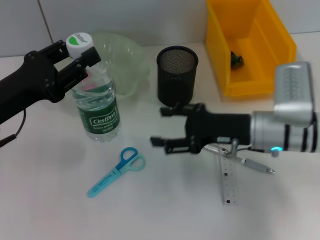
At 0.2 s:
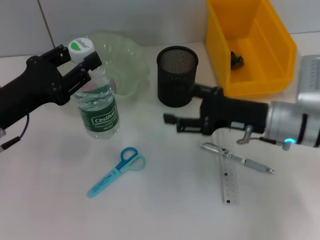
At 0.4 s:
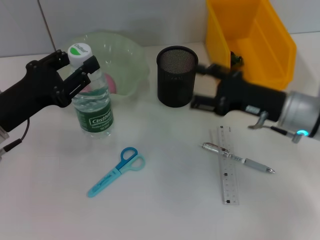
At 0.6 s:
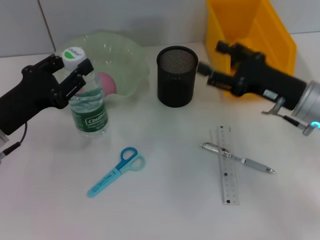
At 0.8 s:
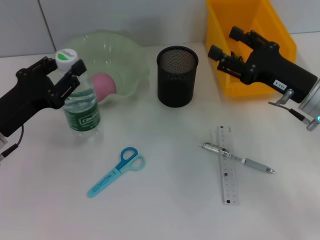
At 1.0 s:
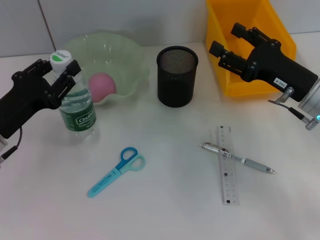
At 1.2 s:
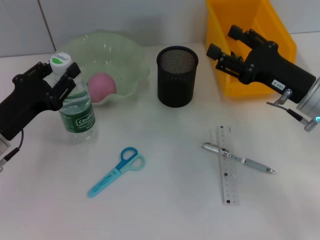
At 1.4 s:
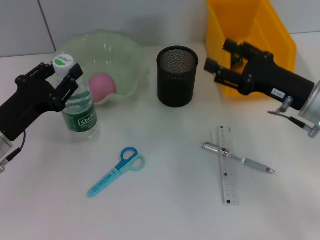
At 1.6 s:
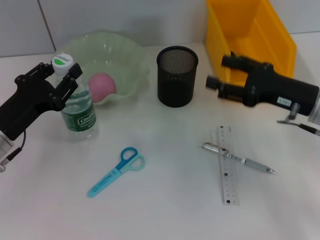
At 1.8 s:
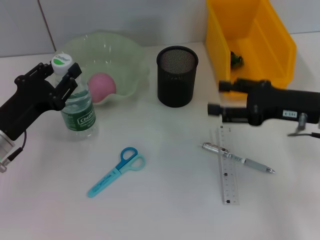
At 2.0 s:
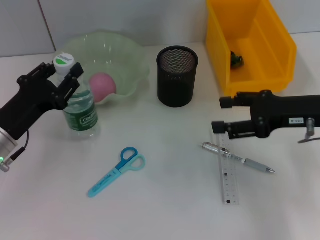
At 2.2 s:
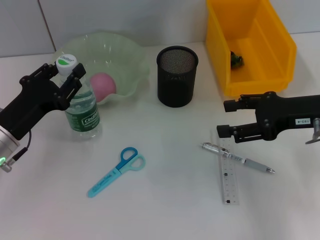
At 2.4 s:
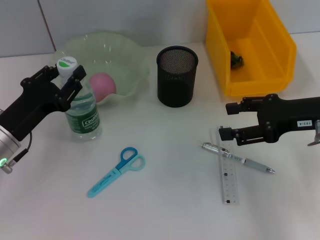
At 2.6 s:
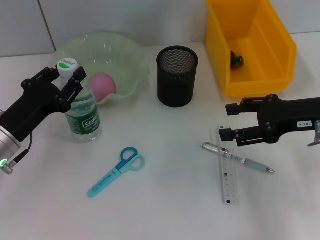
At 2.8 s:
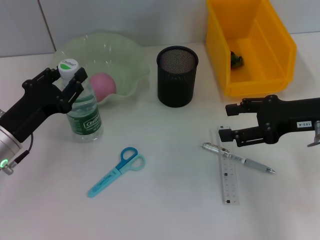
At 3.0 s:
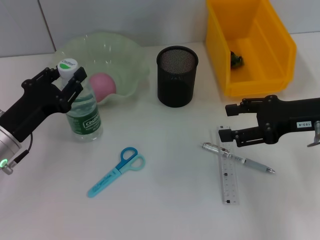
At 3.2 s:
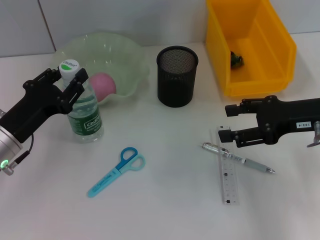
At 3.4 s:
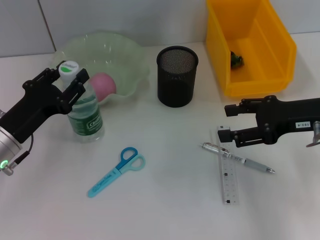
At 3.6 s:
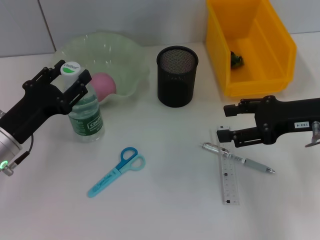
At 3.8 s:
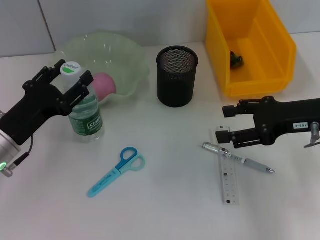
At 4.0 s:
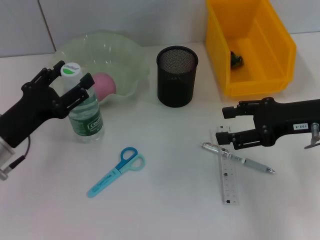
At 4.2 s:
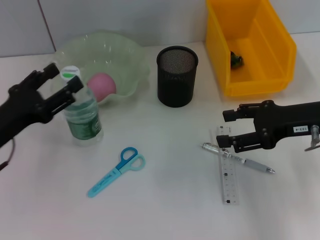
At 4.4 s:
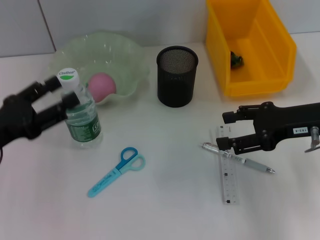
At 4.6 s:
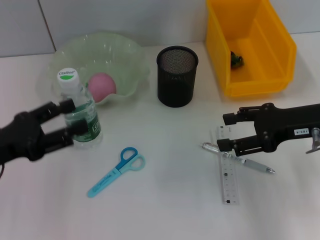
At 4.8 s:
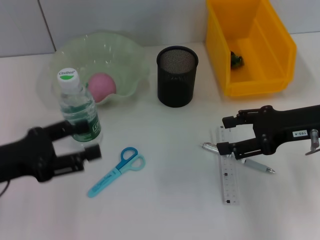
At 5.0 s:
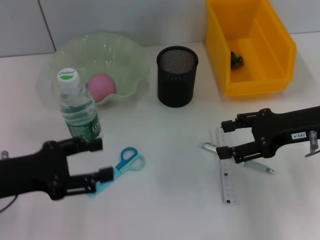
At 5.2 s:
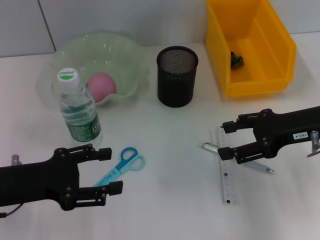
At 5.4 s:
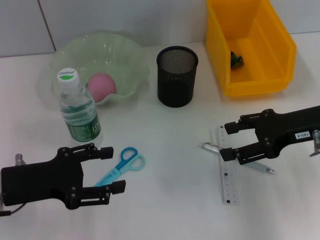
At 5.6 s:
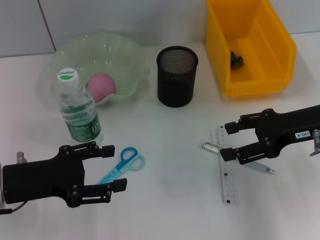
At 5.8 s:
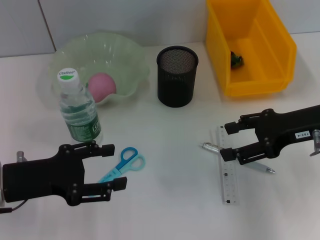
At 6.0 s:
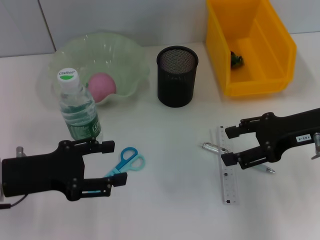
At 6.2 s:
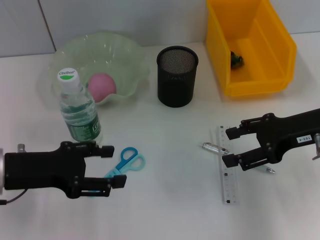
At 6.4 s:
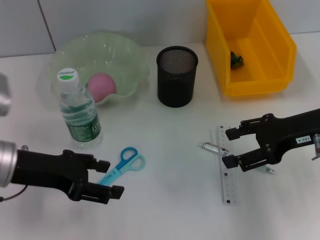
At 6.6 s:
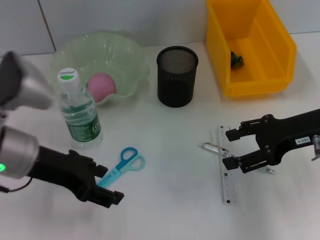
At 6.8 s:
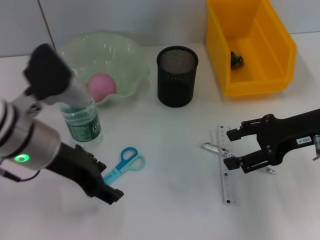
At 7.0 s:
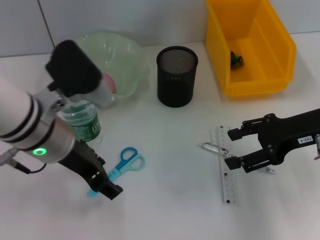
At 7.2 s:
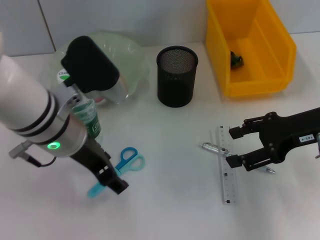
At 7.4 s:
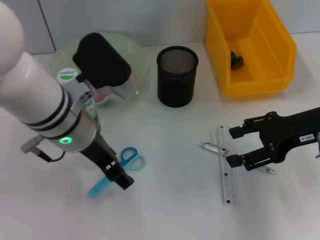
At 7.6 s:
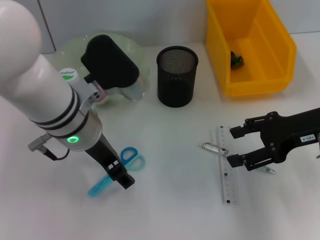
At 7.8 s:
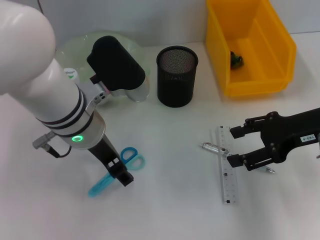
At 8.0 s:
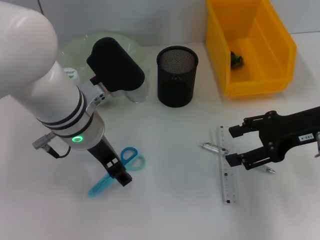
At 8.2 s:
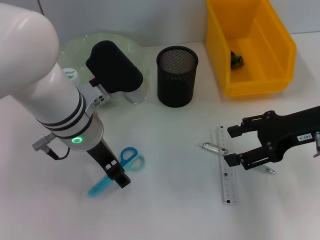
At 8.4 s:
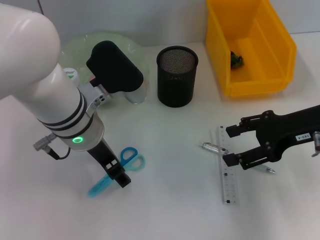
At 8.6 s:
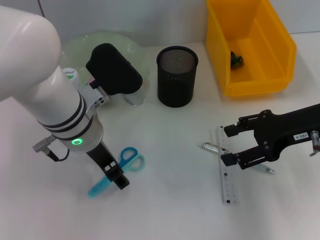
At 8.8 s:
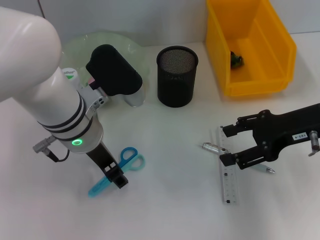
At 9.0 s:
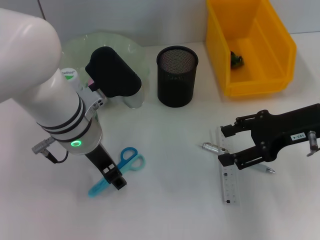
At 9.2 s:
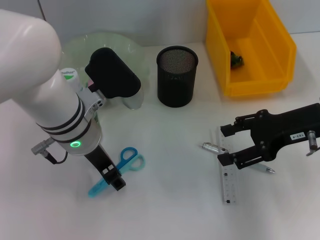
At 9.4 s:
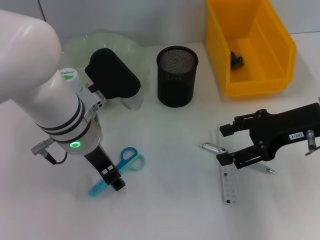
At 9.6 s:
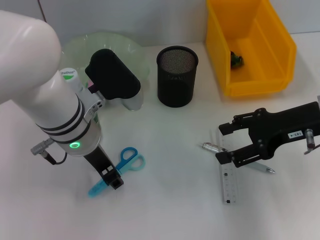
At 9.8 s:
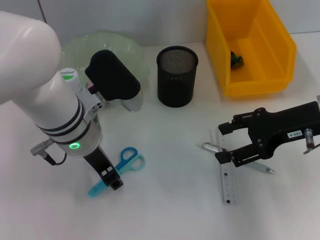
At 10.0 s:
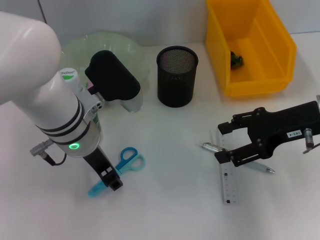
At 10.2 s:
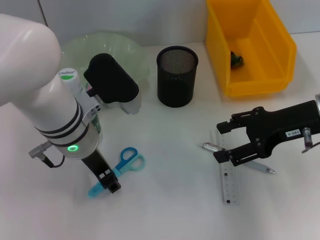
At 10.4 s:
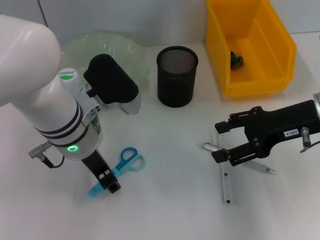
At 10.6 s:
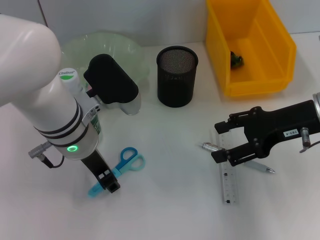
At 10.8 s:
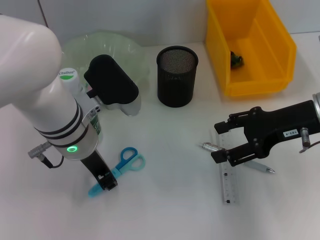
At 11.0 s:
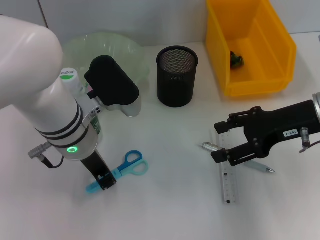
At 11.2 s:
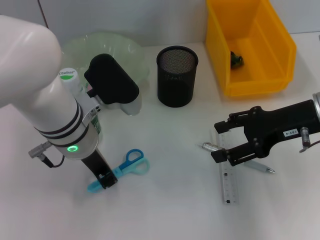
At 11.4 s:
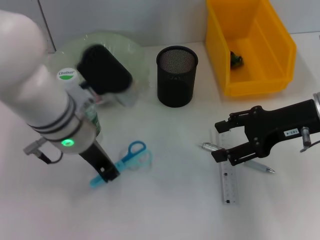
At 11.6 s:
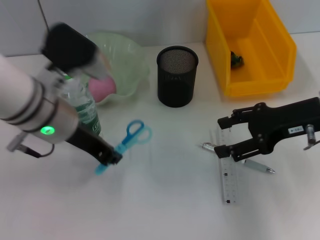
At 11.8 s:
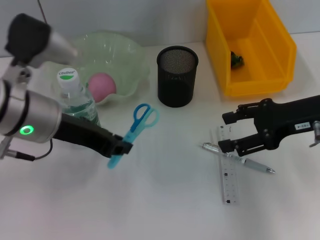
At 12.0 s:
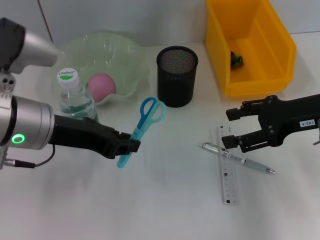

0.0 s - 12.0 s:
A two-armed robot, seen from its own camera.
Step, 0.0 s - 3.6 s: Place the water bottle on the table with the left hand.
Step, 4.0 s - 11.0 s: Grab the blue scissors with the left hand.
0.0 s - 1.6 s: The right gripper is displaced to the right by roughly 5 cm, while the left gripper moves downward, approximately 5 cm.
3.0 s - 4.4 s: The left gripper moves roughly 5 cm, and opens its fingers.
6.0 s - 7.6 s: The left gripper moves to the right and forward, some 15 cm.
7.6 s - 9.0 s: The grippers make only small movements.
9.0 s - 10.4 s: Neither gripper changes place.
10.4 s - 12.0 s: The left gripper is displaced to the left by about 5 cm, and closes its fingers.

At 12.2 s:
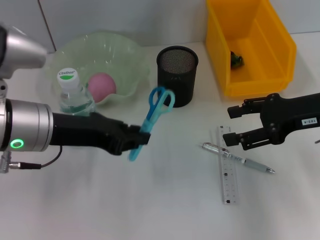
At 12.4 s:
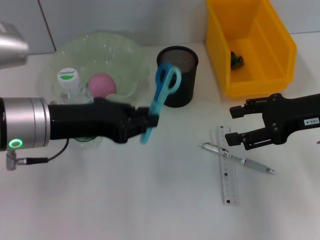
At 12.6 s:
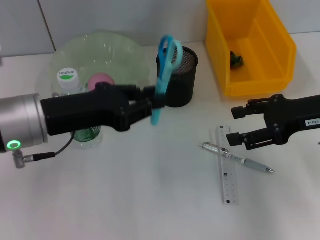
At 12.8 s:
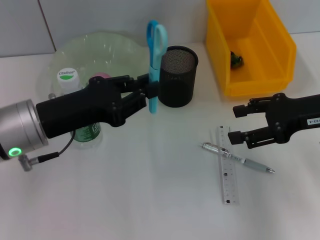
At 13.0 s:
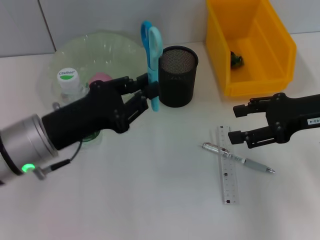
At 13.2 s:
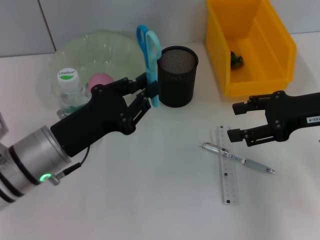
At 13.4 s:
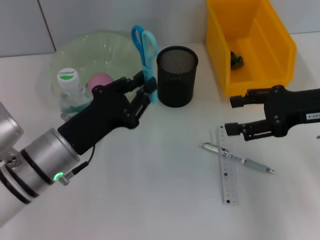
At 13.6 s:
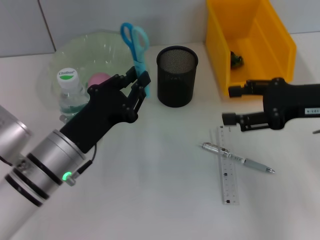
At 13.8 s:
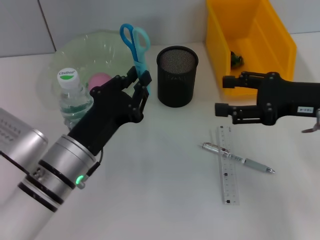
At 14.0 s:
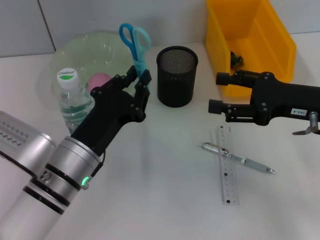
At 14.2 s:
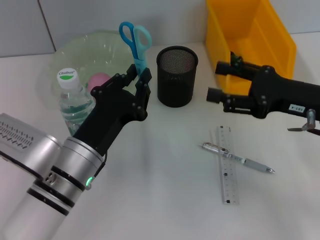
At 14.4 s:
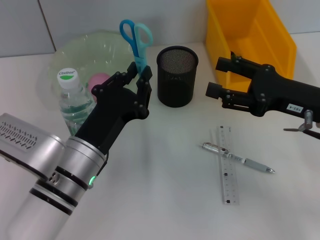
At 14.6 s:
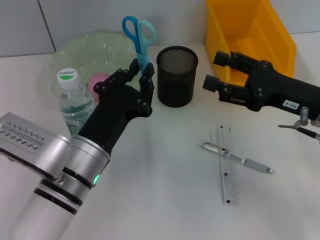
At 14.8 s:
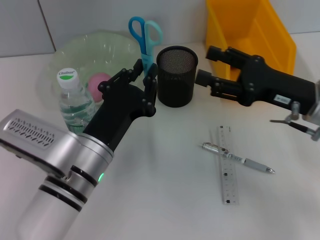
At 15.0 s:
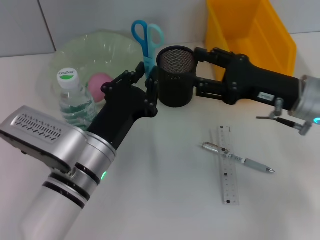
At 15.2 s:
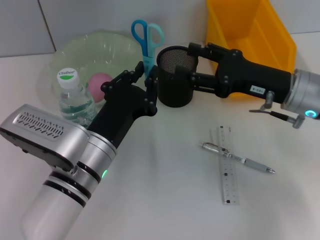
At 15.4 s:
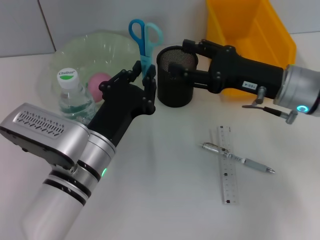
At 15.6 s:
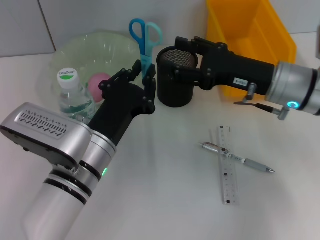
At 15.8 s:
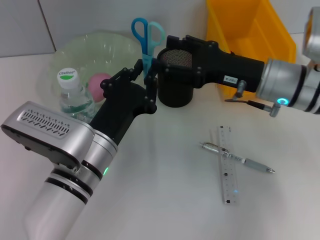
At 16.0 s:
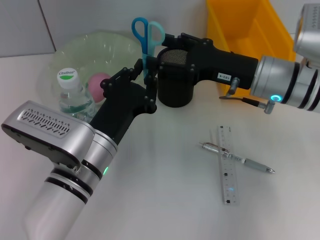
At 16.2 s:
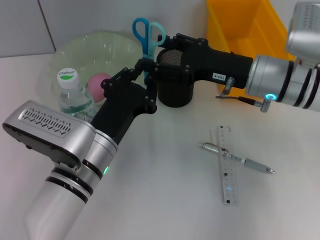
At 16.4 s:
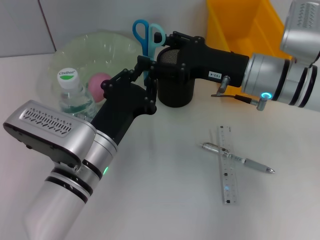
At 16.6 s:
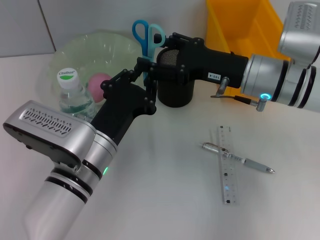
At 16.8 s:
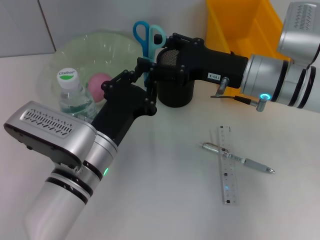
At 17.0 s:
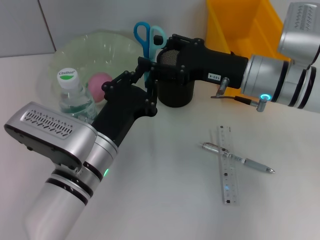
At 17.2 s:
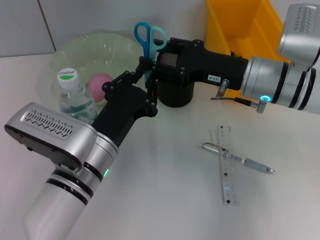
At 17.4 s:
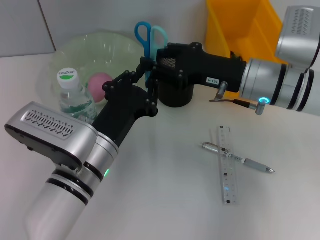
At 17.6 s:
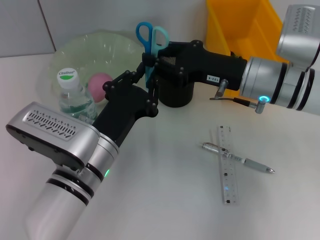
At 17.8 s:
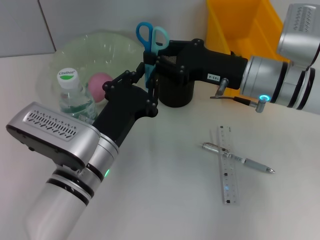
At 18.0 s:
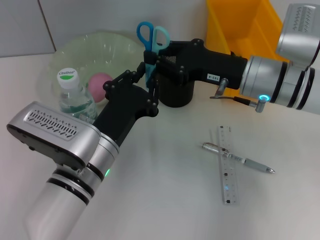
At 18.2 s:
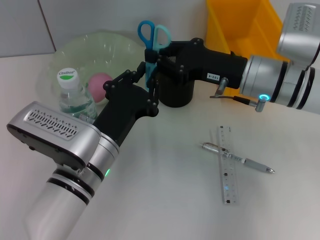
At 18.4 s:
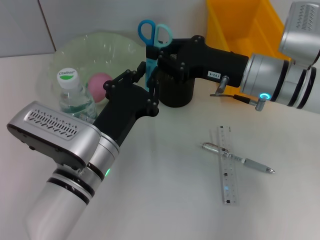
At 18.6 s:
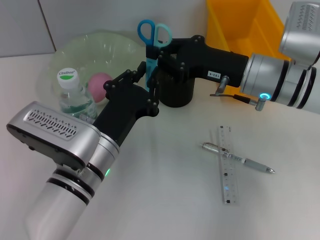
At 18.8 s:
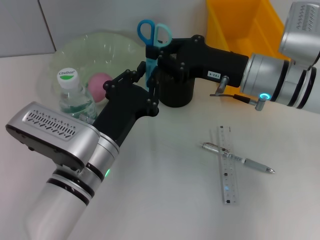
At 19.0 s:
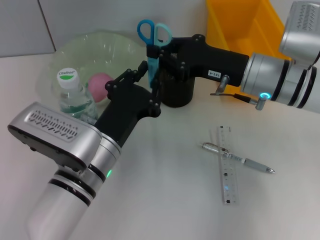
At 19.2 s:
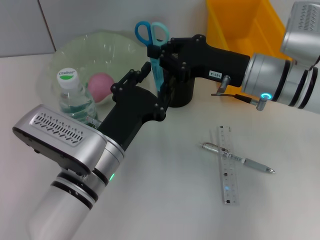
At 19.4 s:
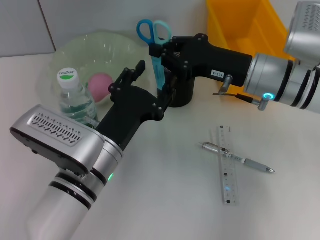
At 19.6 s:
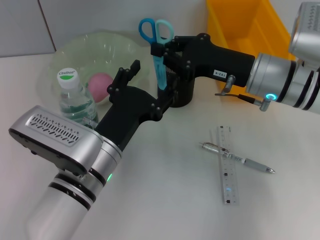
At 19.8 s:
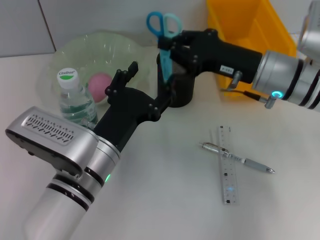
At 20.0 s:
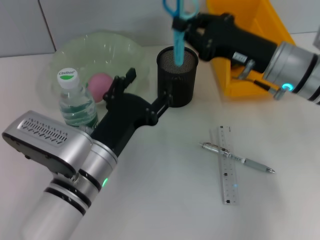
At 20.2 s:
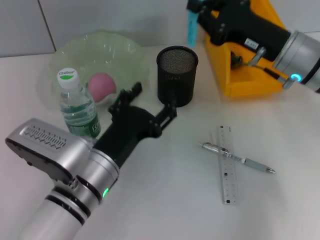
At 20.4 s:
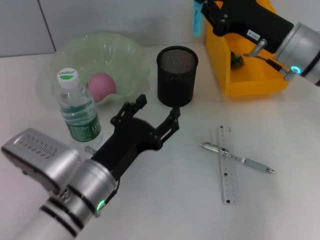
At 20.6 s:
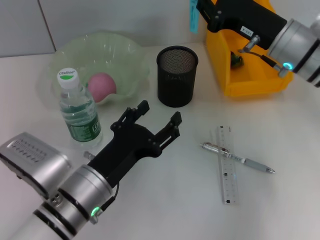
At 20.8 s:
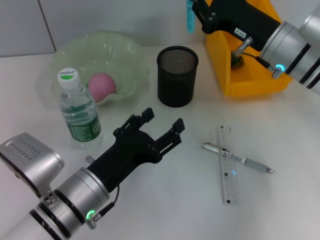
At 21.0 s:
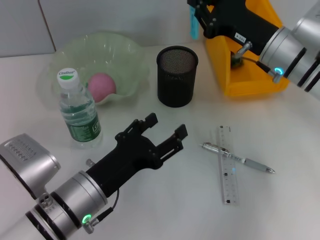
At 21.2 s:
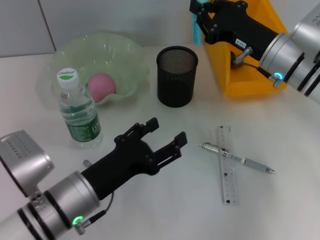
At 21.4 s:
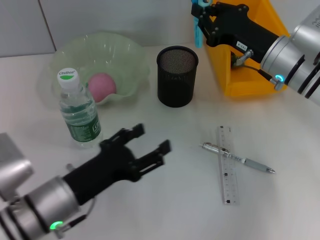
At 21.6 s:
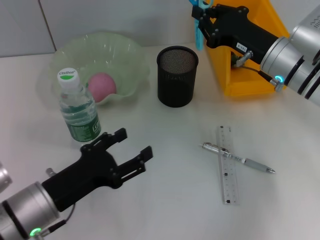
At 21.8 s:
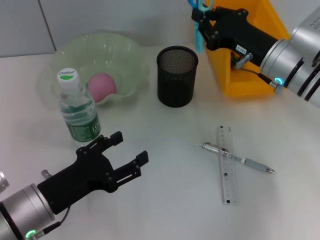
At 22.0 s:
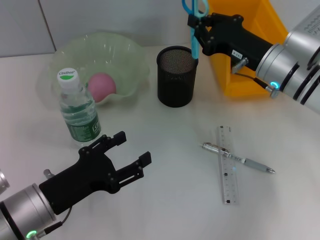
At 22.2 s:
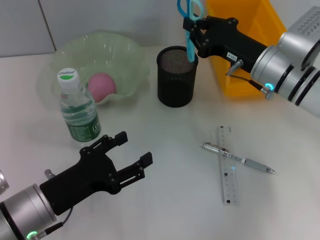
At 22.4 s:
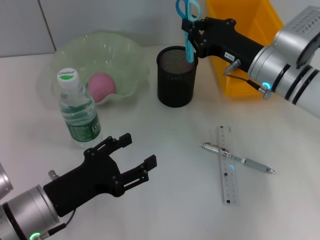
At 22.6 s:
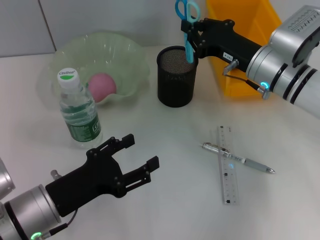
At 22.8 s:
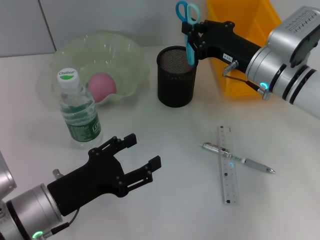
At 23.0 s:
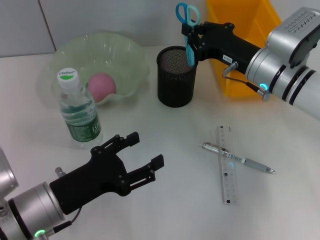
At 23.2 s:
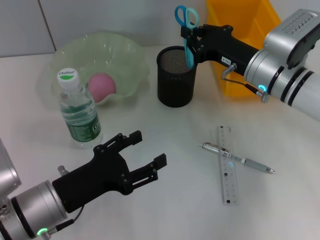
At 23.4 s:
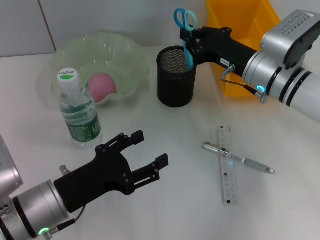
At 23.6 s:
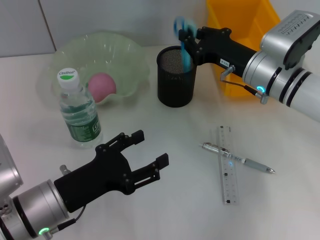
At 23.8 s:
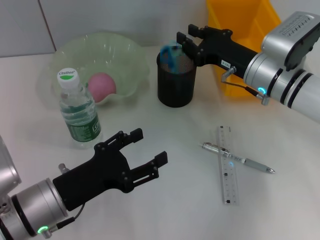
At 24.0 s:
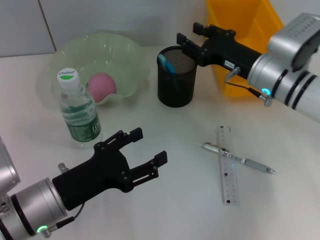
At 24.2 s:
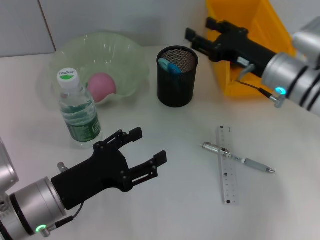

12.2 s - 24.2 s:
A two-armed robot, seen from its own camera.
Step, 12.2 s - 19.2 s: Pass the blue scissors from the left hand to the right hand.
Step, 19.4 s - 24.0 s: Place the blue scissors into the pen holder with the right hand.
12.2 s - 13.8 s: The left gripper shifts some 10 cm downward.
13.8 s - 15.2 s: The right gripper shifts about 5 cm to the left.
15.2 s - 16.6 s: The right gripper heads to the left, covering about 5 cm.
16.6 s - 18.2 s: The right gripper closes its fingers.
18.2 s - 19.8 s: The left gripper opens up.
19.8 s - 21.2 s: The left gripper ends up roughly 5 cm from where it was.
21.2 s - 22.6 s: The left gripper heads to the left, covering approximately 5 cm.
22.6 s - 24.2 s: The right gripper opens.
